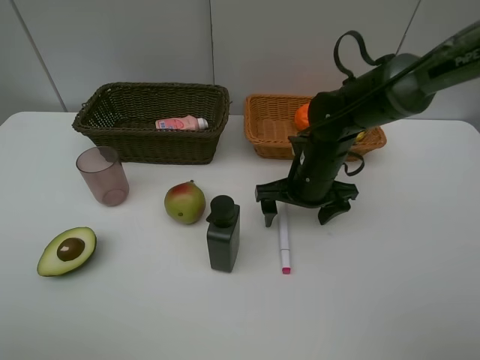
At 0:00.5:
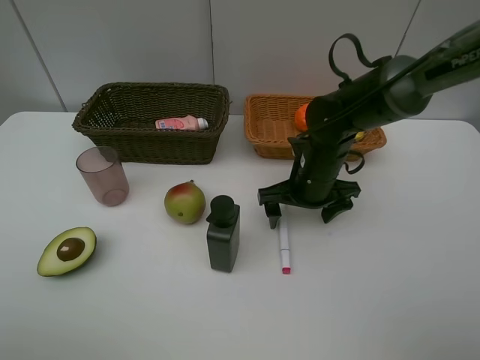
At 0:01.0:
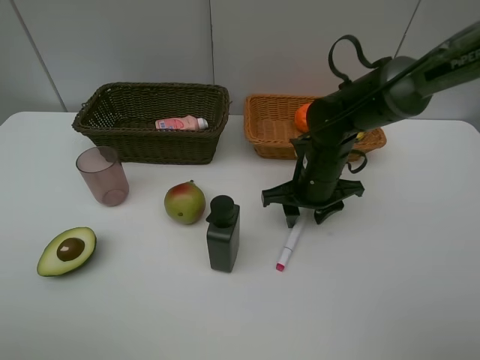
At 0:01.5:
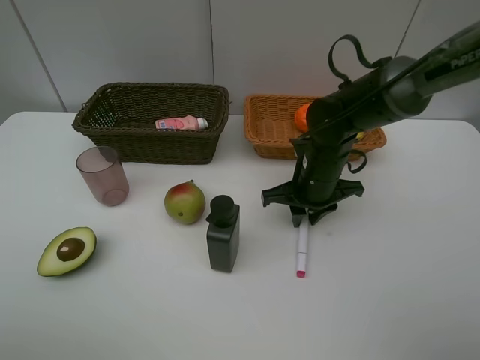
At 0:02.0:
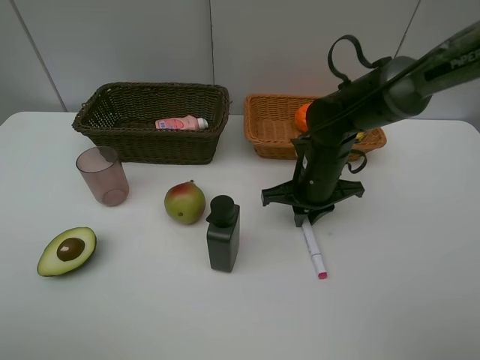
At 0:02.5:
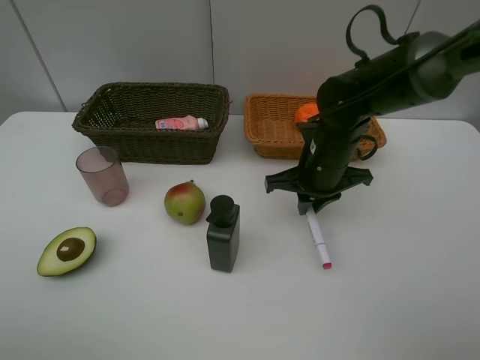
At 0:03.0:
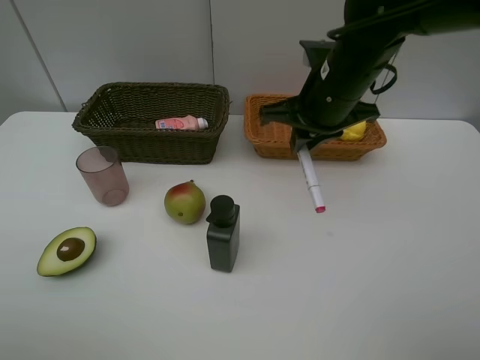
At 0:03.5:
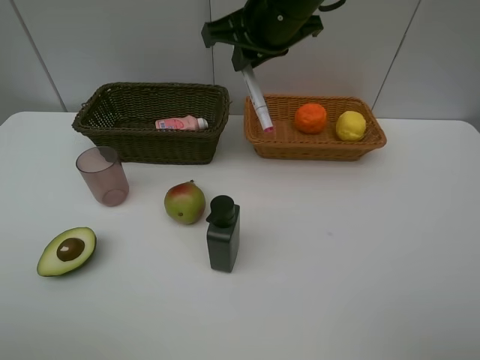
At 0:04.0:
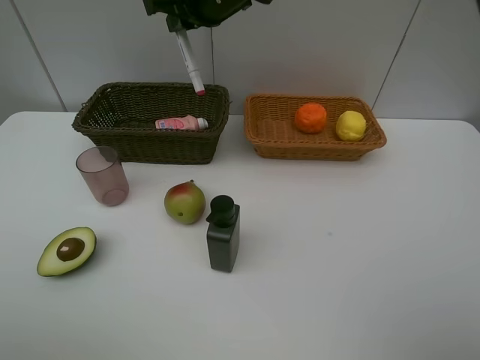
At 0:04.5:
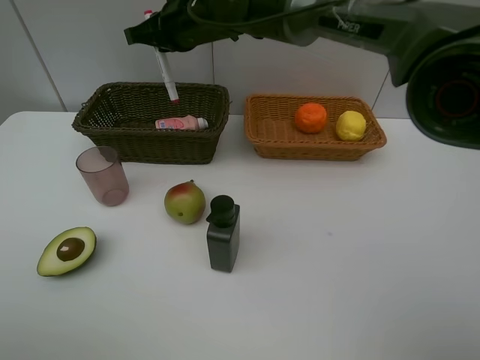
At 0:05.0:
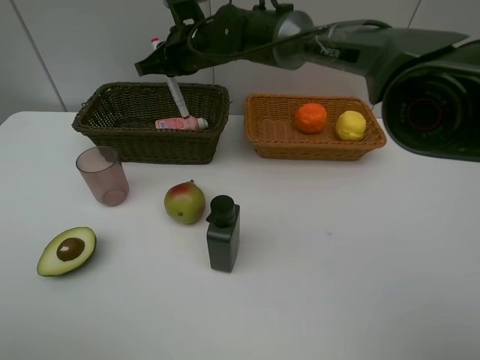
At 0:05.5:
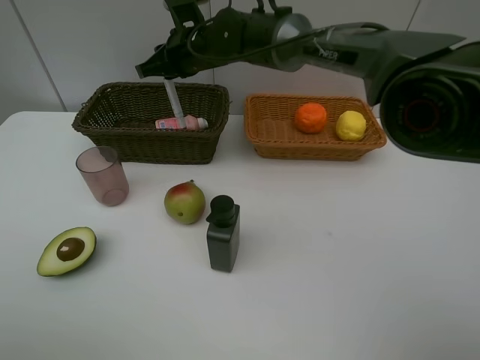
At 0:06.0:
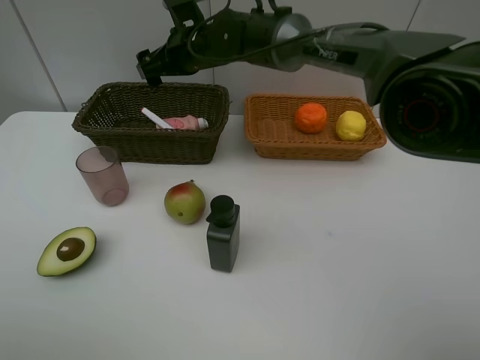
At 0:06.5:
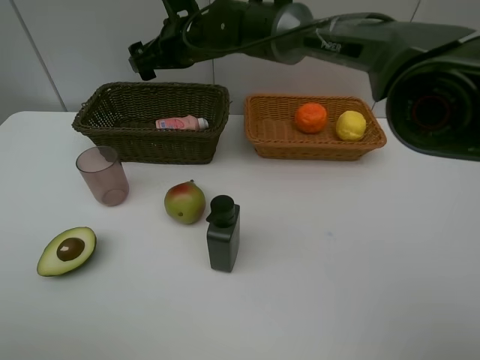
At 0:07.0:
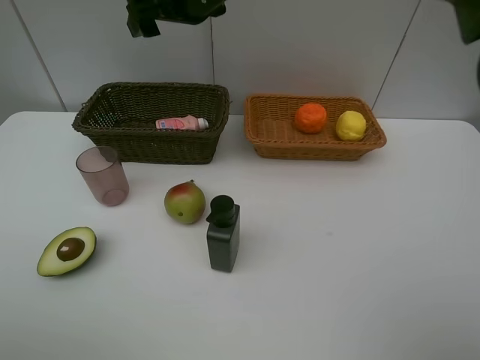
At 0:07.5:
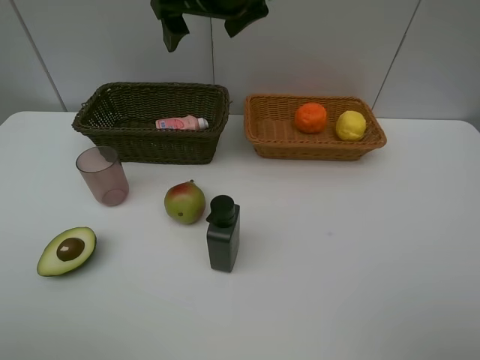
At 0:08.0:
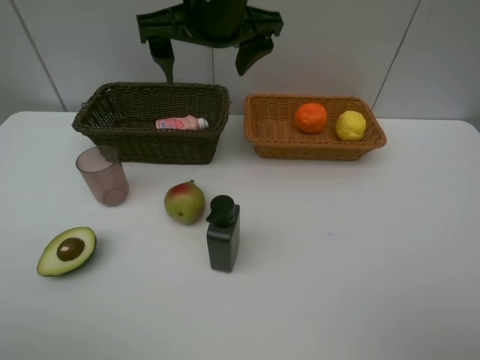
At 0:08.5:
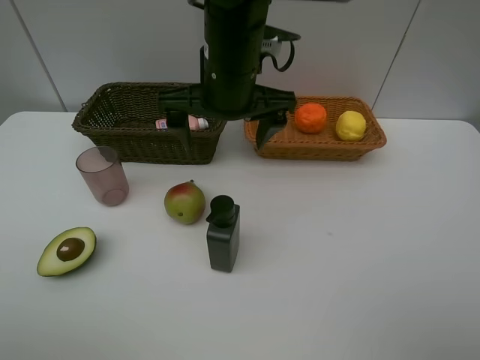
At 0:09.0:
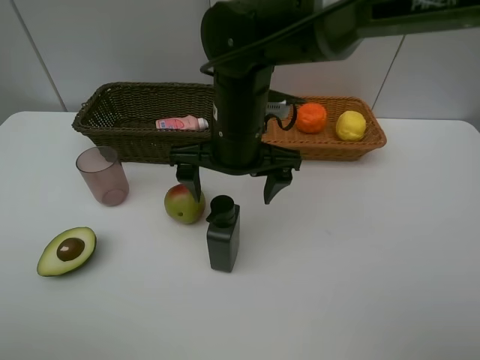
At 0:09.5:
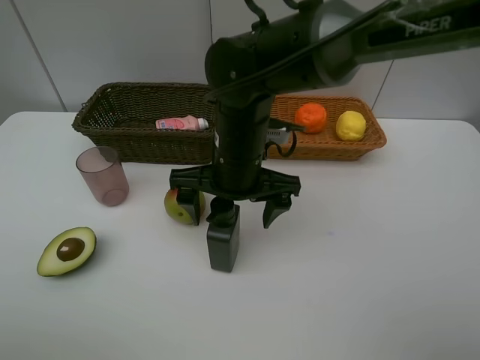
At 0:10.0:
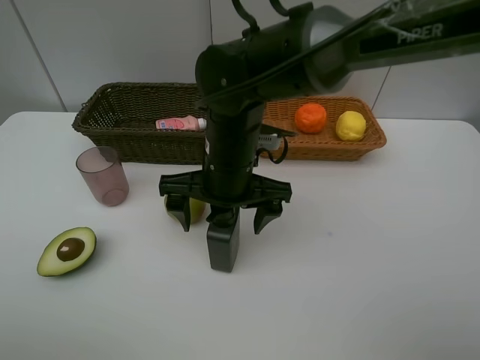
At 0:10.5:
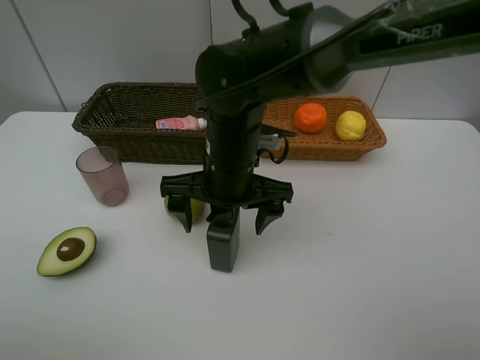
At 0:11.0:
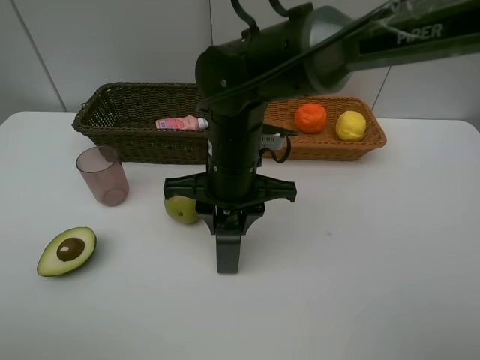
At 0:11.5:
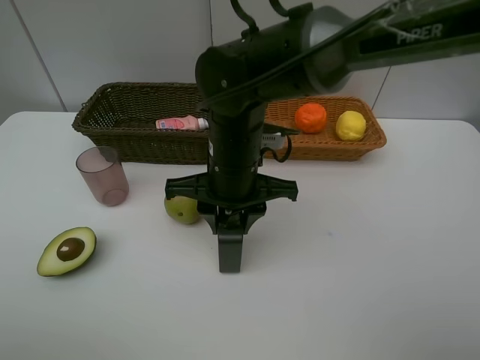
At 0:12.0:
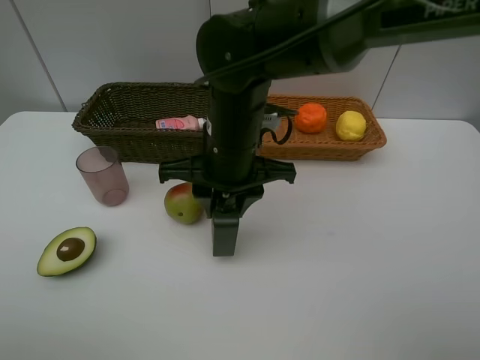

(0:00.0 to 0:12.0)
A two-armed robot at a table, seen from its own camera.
Task of the whole recording: Place multiple objects separately in different baskets.
Step, 0:00.0 - 0:02.5: Pick up the red marker with right gripper.
Step, 0:03.0 - 0:06.0: Place the red marker in the dark basket with right gripper.
Step, 0:06.5 - 0:12.0: Pick up the hard facial cleanser with right gripper.
0:00.0 - 0:02.0: The right gripper closes its fingers.
0:02.0 - 0:04.0: The right gripper is displaced upward, to the left and forward by some 25 cm.
0:04.0 - 0:06.0: The right gripper goes approximately 10 cm downward, and opens up.
0:06.0 - 0:08.0: The right gripper is displaced backward and upward by approximately 15 cm.
0:08.0 - 0:10.0: The right gripper travels downward and backward by about 15 cm.
0:10.0 - 0:12.0: The right gripper closes its fingers.

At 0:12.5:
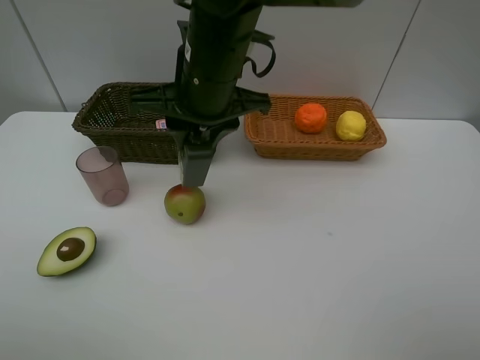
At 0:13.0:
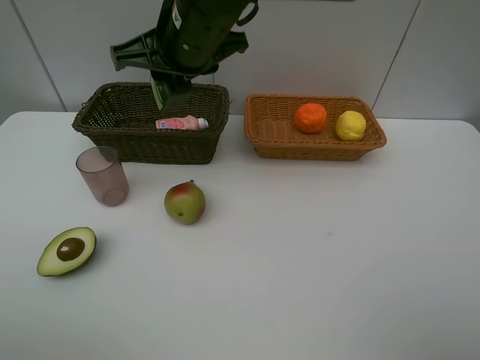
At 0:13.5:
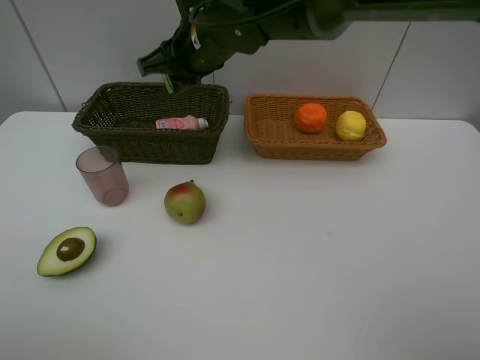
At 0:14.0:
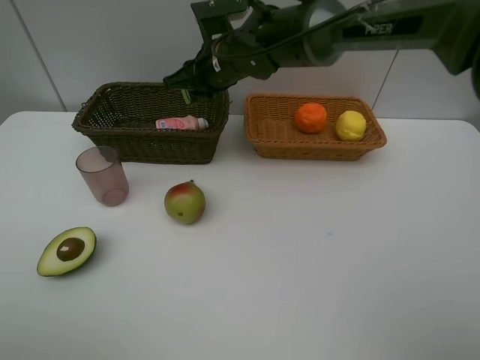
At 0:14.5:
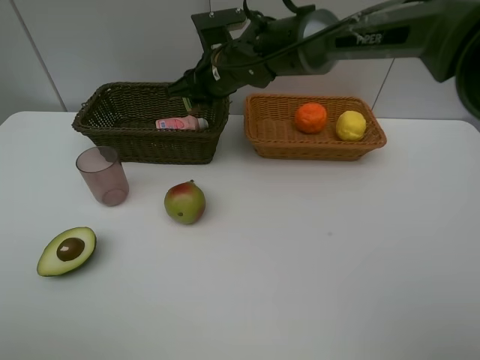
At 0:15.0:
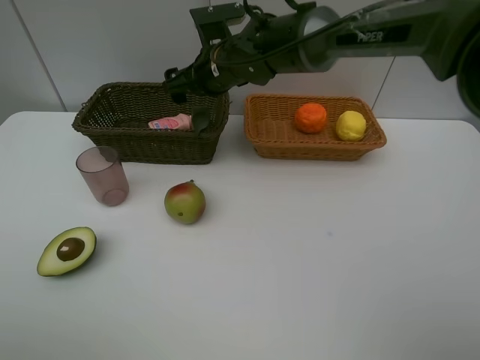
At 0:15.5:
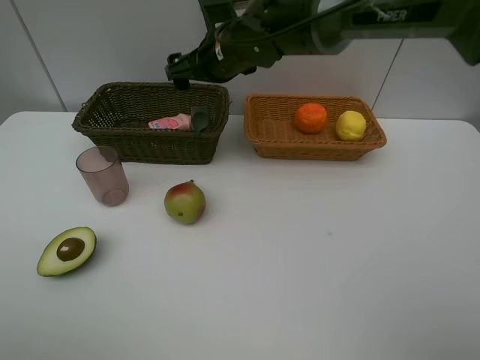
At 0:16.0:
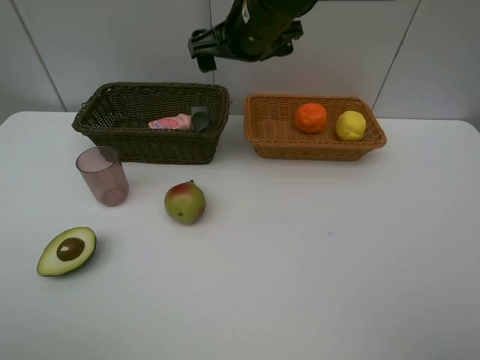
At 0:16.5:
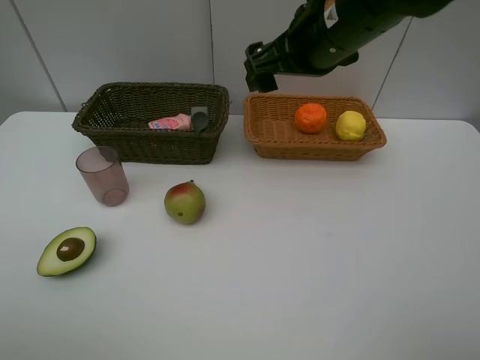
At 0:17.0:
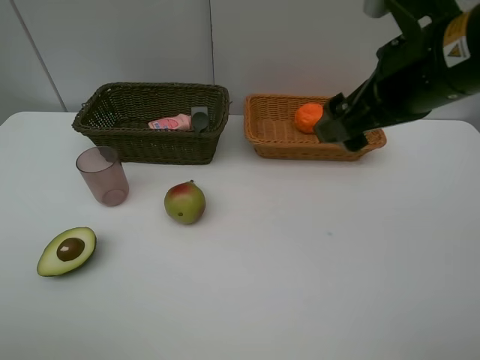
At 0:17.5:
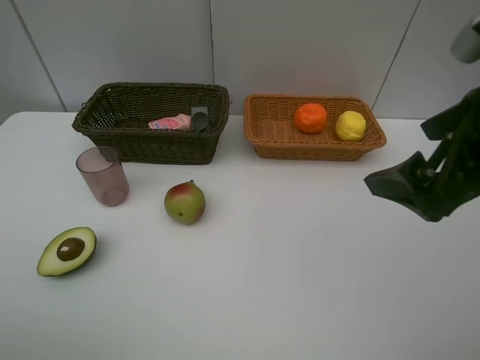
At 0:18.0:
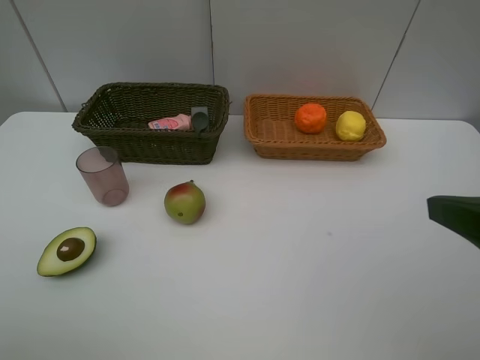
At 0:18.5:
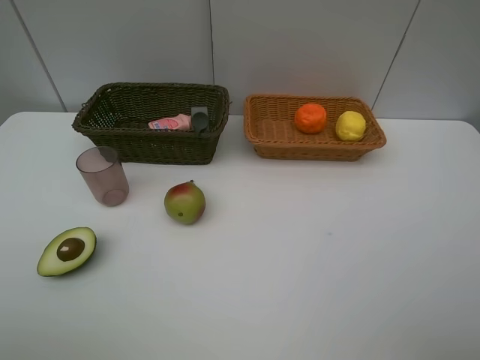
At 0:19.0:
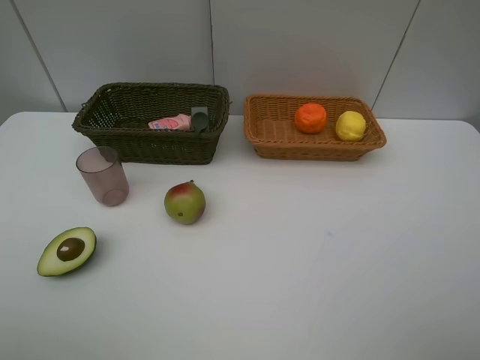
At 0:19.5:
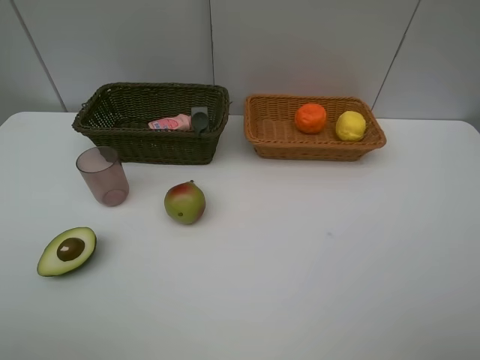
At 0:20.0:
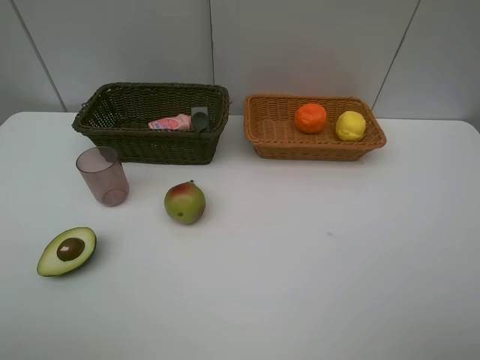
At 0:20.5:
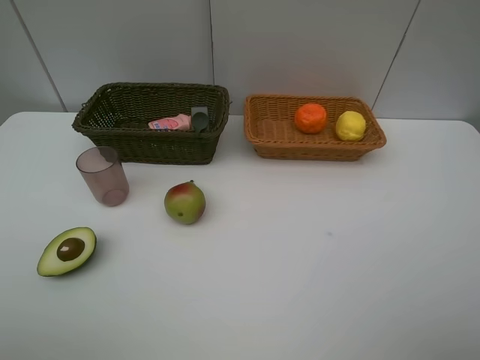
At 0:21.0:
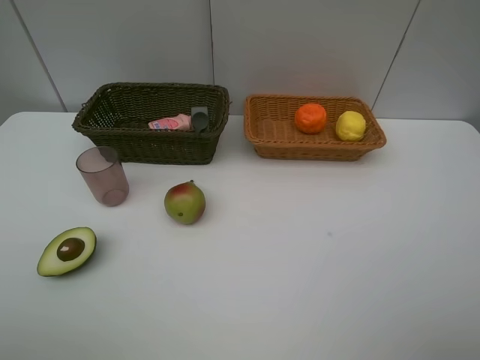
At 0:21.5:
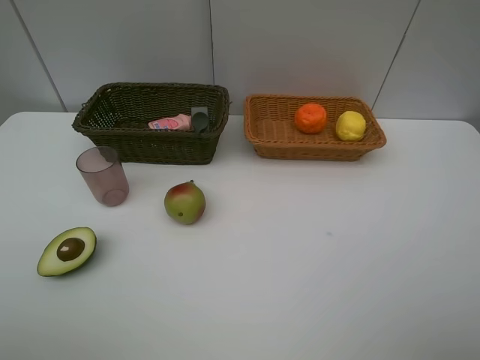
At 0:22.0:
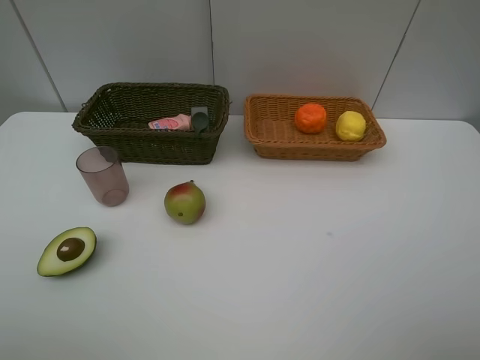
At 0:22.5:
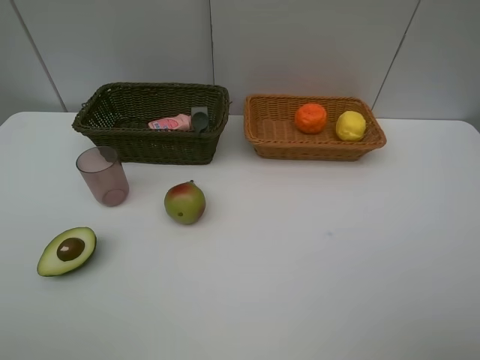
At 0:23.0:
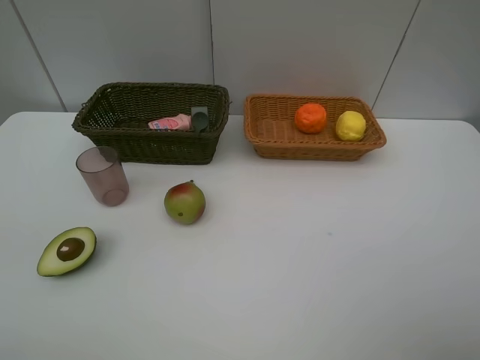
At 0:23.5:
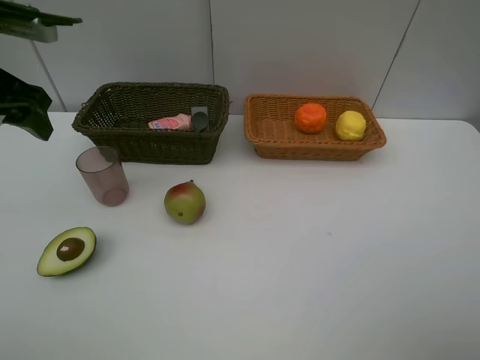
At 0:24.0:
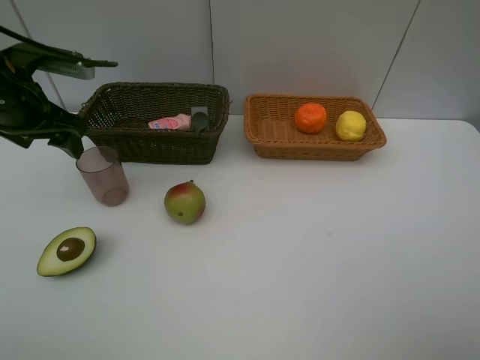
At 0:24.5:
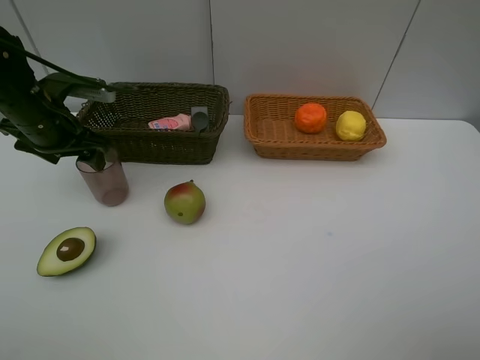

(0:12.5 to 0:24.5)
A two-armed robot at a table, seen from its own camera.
Task of the whole recording: Place multiple objects separately in different baskets.
Step, 0:12.5 - 0:15.5: Place the hard facial cleanser in the dark basket with right gripper.
0:12.5 - 0:14.5: The right gripper is displaced forward and downward by approximately 15 cm.
0:14.5 - 0:16.5: The right gripper heads backward, to the right and upward, covering about 20 cm, and opens.
0:16.5 - 0:18.5: The right gripper moves backward and to the right, roughly 30 cm.
0:22.5 - 0:24.5: The left gripper is displaced forward and downward by approximately 30 cm.

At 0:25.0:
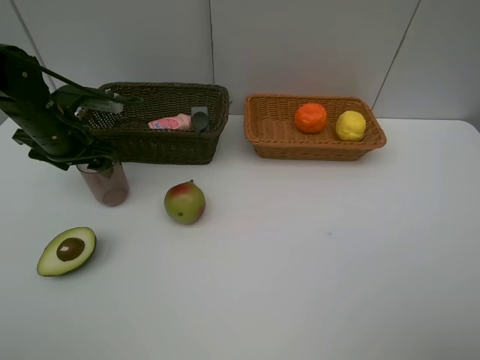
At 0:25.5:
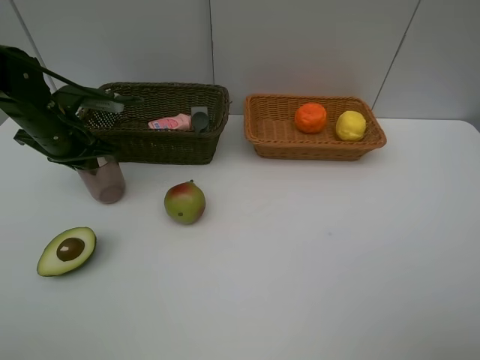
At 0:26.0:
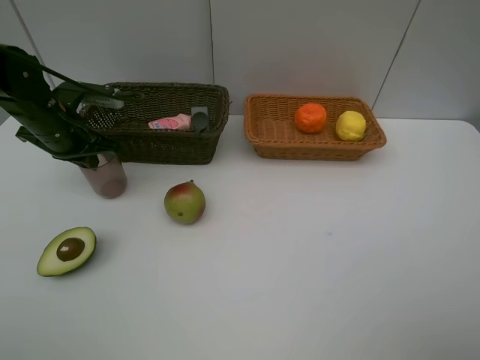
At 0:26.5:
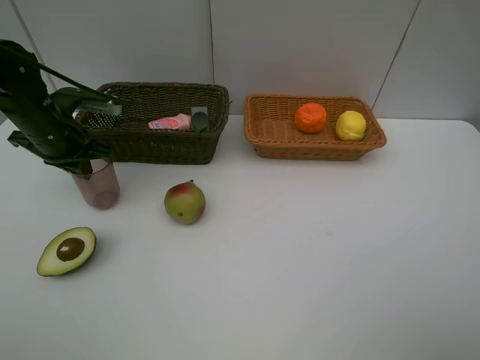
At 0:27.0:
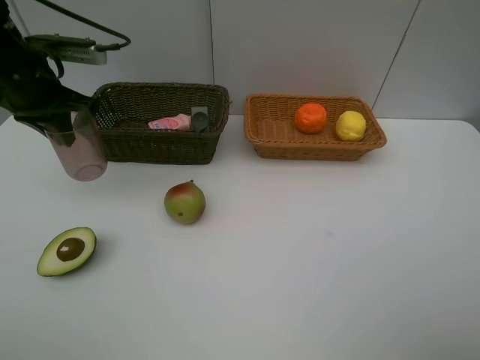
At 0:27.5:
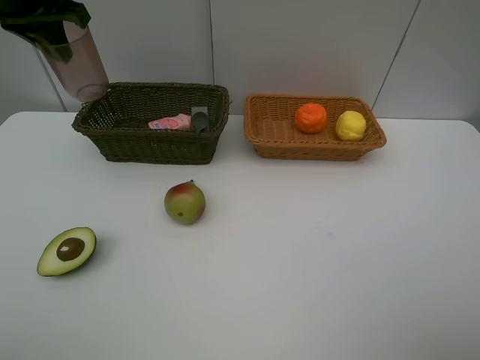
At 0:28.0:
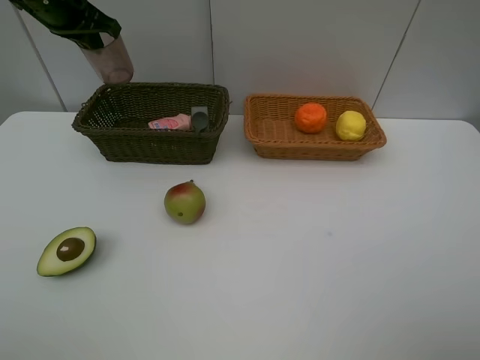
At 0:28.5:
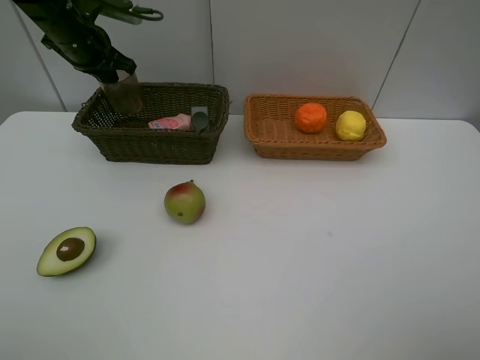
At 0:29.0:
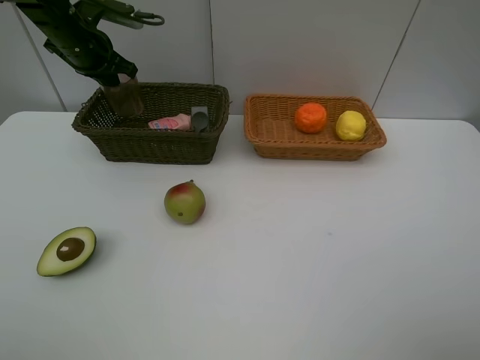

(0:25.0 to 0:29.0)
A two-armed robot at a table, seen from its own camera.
Task of the whole recording: Place multiple objects separately in different baskets.
0:25.0 - 0:27.0: The left gripper shifts approximately 10 cm upward, and closes.
0:27.0 - 0:29.0: The left gripper moves forward, roughly 10 cm.
